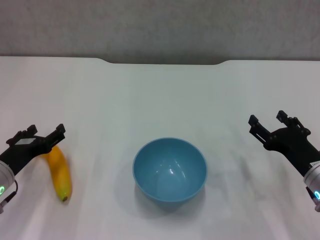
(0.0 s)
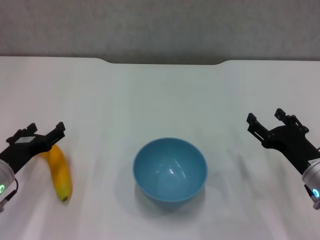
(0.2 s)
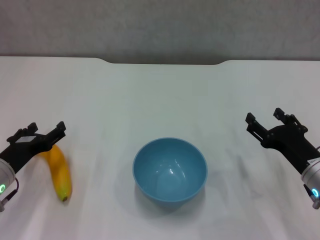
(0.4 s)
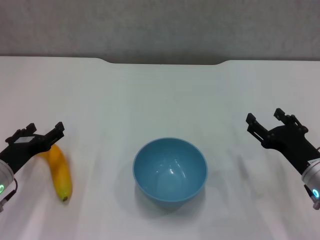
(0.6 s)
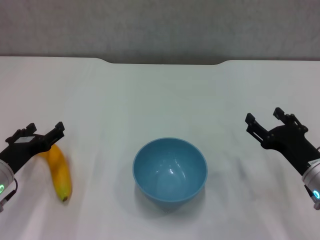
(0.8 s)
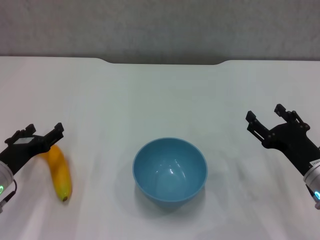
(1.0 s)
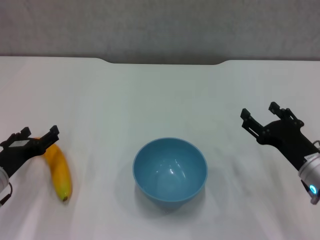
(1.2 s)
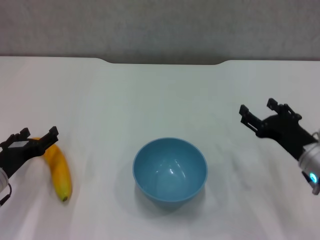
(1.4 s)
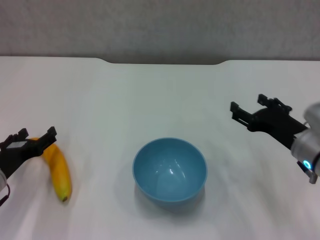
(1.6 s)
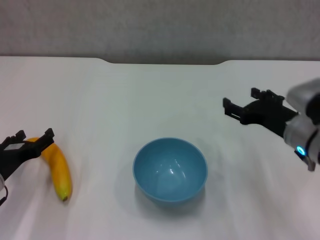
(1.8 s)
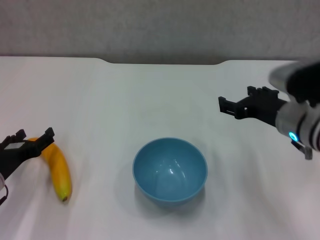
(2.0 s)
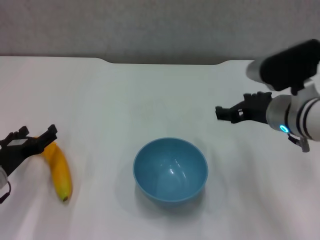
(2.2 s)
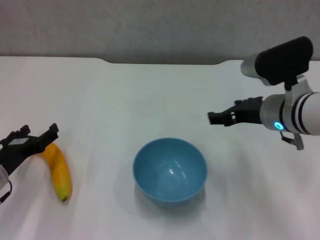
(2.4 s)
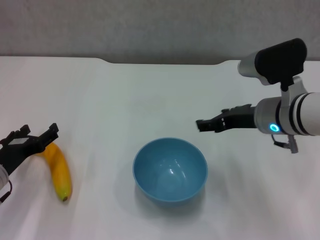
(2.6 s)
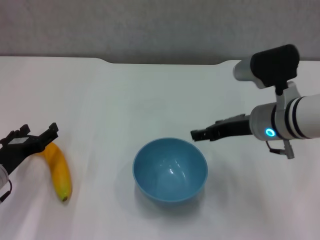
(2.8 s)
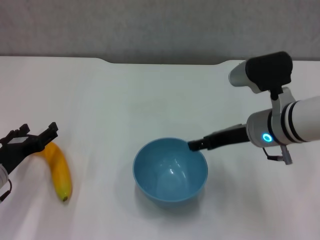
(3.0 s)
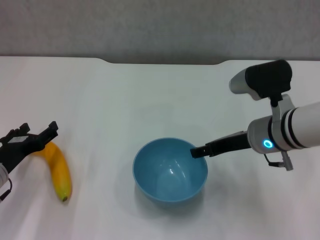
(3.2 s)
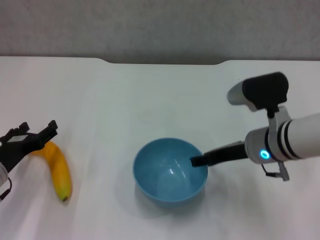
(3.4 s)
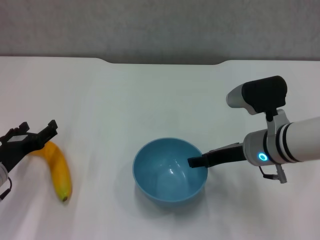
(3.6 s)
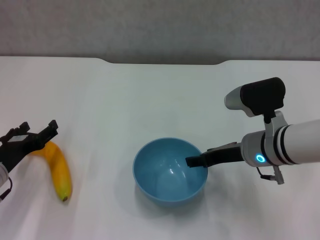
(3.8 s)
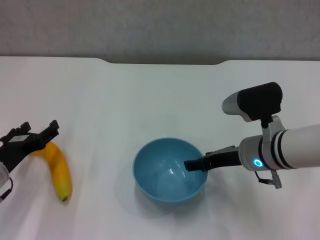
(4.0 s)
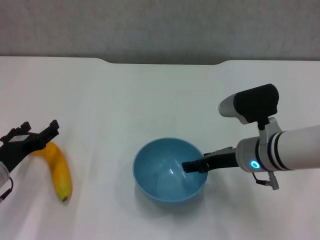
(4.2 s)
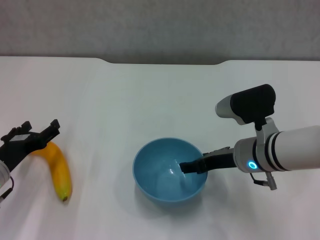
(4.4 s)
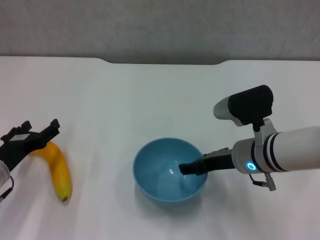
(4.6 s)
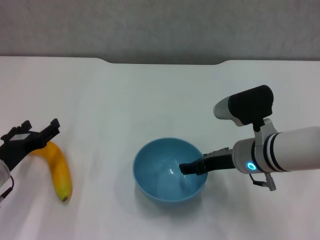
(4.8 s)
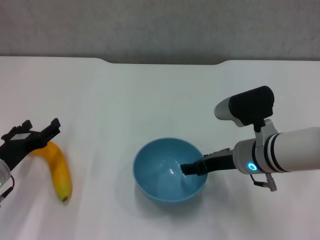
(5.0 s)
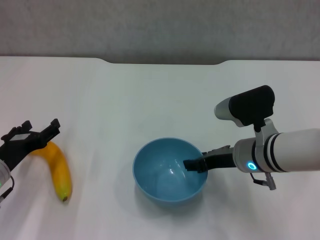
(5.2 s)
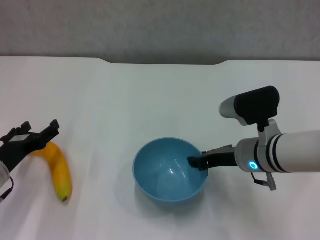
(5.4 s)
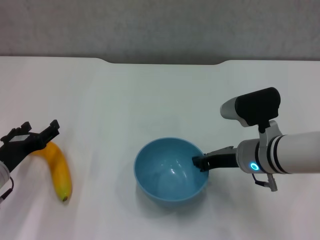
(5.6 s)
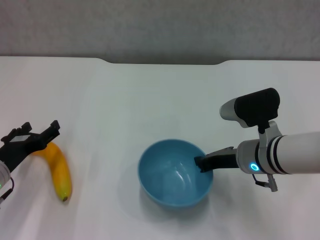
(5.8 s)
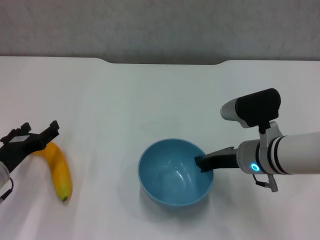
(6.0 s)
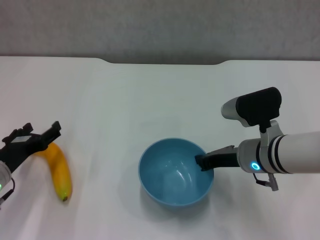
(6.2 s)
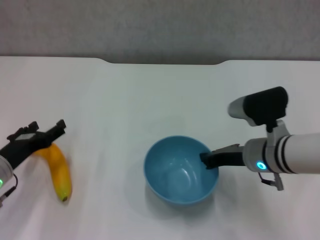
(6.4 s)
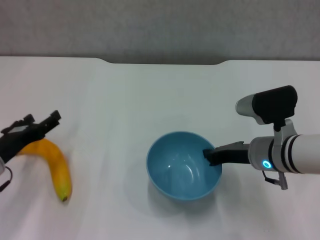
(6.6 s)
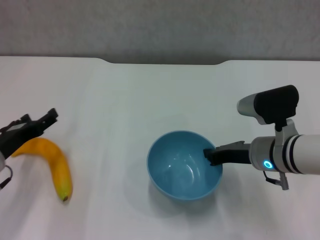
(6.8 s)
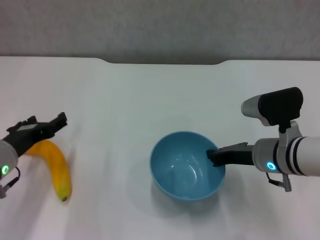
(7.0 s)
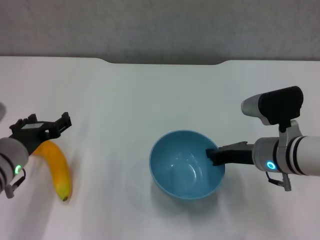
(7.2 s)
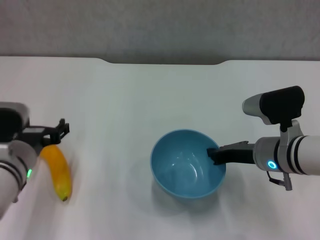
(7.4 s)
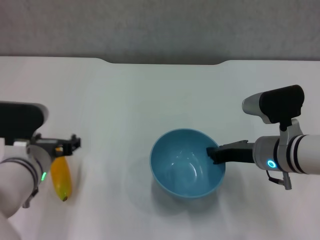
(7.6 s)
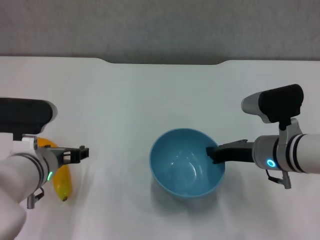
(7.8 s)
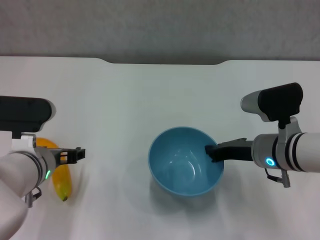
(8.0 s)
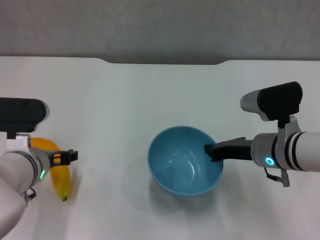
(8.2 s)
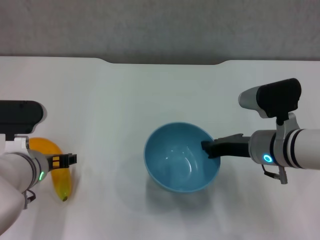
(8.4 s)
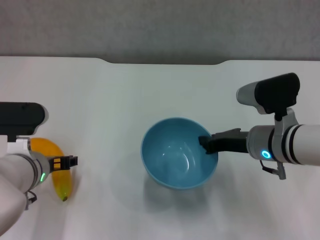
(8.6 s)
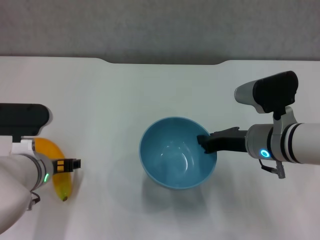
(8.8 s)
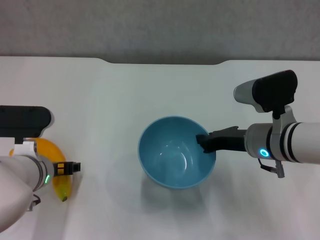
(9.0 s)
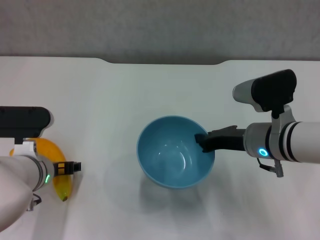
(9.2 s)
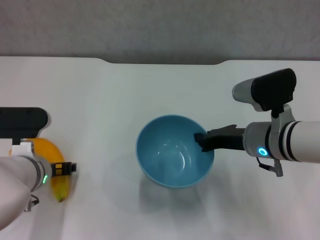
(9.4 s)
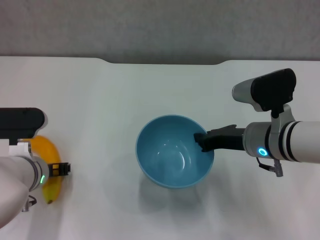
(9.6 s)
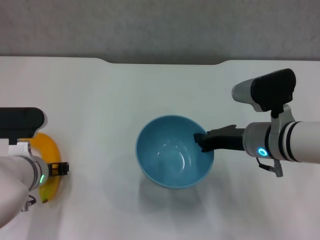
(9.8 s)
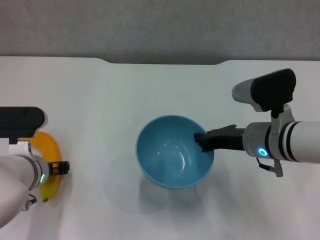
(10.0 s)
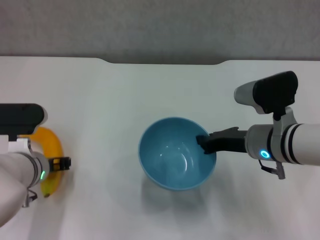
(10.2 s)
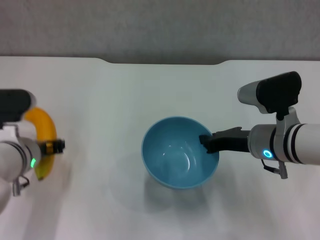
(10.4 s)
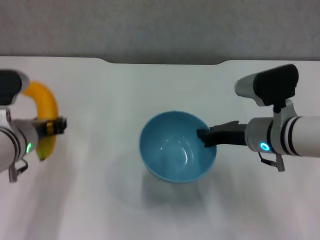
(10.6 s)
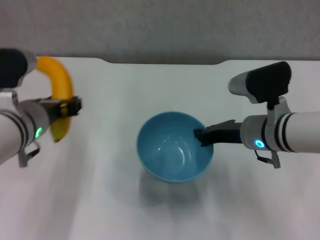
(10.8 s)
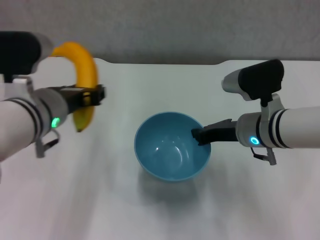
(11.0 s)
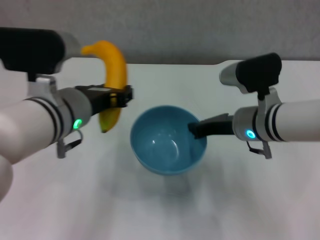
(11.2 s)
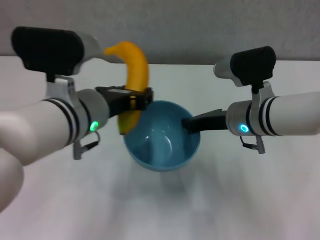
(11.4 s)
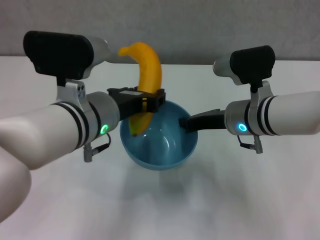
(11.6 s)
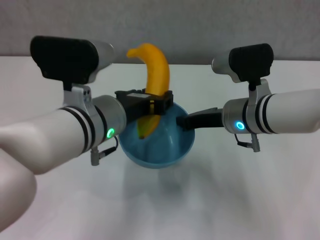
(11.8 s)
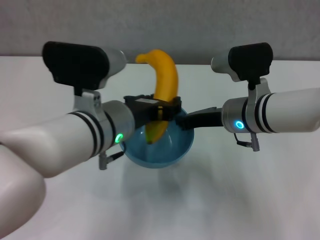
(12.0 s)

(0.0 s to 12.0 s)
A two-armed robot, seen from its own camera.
Step, 0.0 s - 5.8 s: Grasp the blue bowl with right gripper.
Step, 6.0 s - 8.6 s: Lift the blue bowl with right gripper.
Step, 8.8 s - 9.6 s: Grasp the banana with left gripper.
0.0 s - 1.6 s: The right gripper ends up about 5 cm from where it was.
1.6 s - 3.0 s: The right gripper shifts some 10 cm to the left and upward.
3.0 s - 4.4 s: The right gripper changes place by about 5 cm.
4.4 s - 6.0 s: The right gripper closes its fingers.
6.0 s - 7.6 s: The left gripper shifts approximately 10 cm to the right and upward.
7.6 s - 9.0 s: The grippers stay close to where they were, moving slightly.
9.0 s - 10.4 s: The left gripper closes.
10.4 s - 12.0 s: The left gripper goes some 15 cm to the right and upward. Meanwhile the right gripper moves some 5 cm.

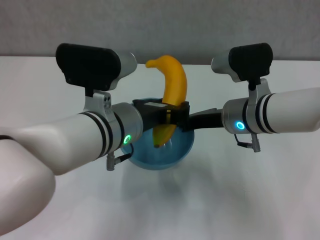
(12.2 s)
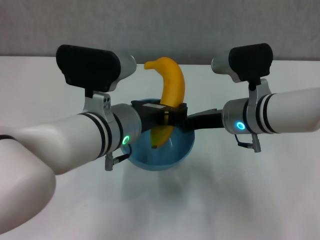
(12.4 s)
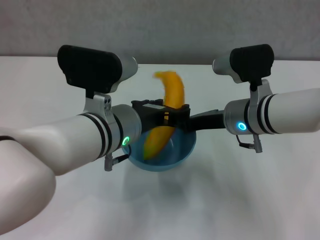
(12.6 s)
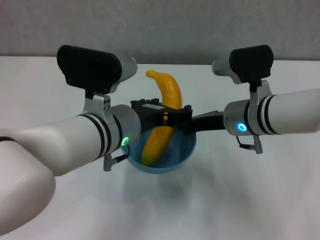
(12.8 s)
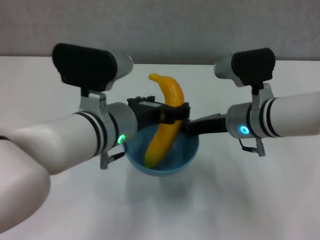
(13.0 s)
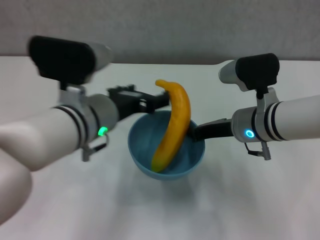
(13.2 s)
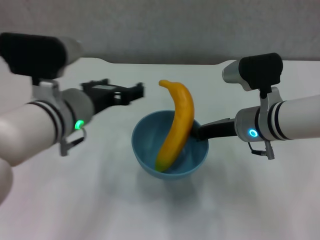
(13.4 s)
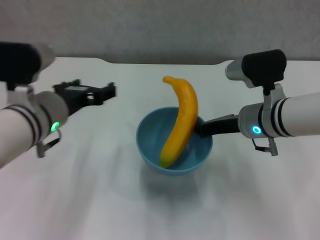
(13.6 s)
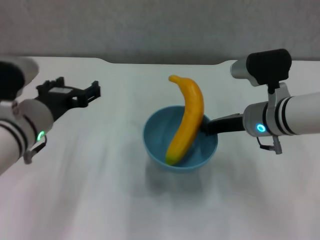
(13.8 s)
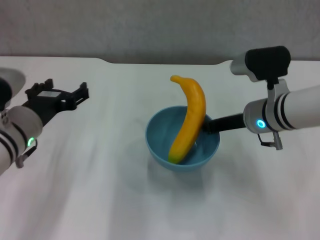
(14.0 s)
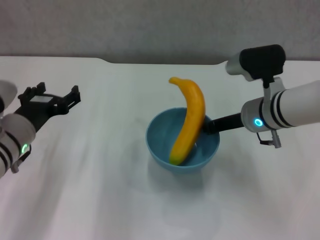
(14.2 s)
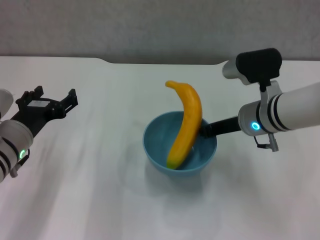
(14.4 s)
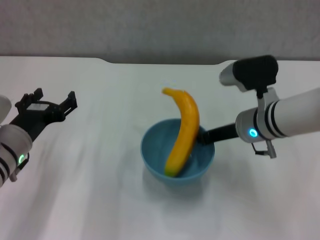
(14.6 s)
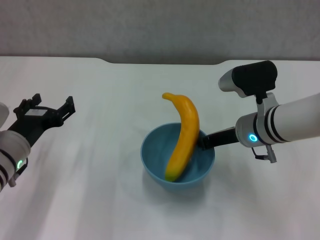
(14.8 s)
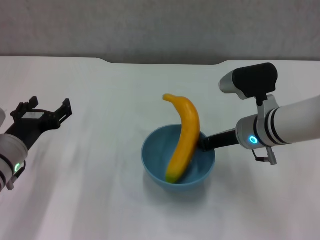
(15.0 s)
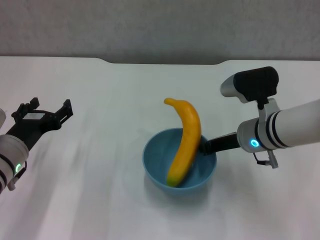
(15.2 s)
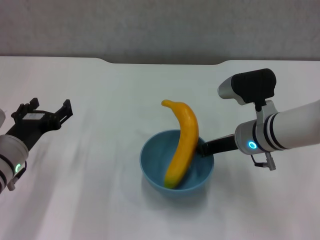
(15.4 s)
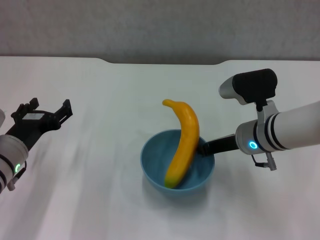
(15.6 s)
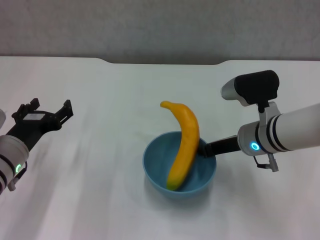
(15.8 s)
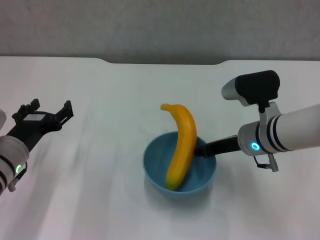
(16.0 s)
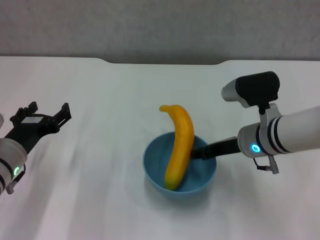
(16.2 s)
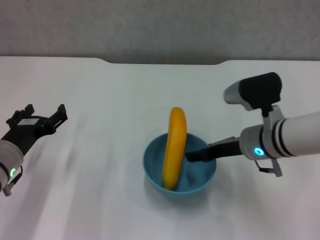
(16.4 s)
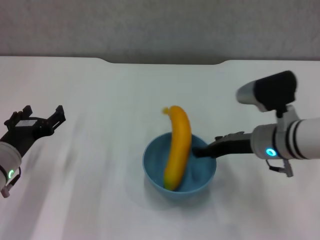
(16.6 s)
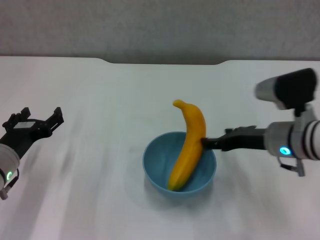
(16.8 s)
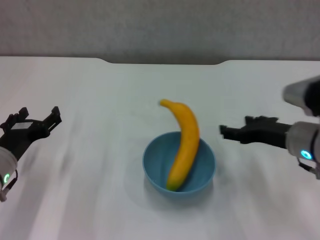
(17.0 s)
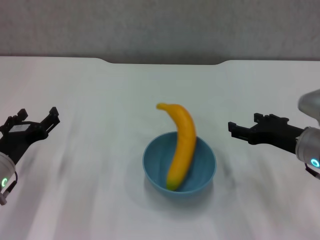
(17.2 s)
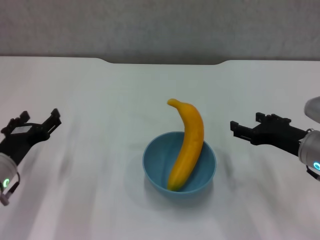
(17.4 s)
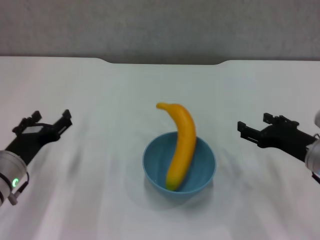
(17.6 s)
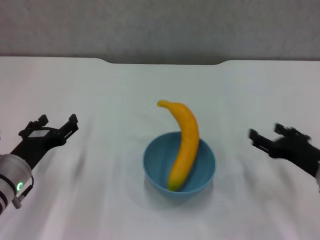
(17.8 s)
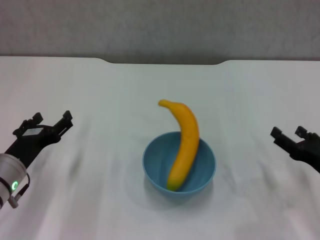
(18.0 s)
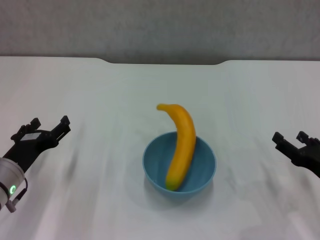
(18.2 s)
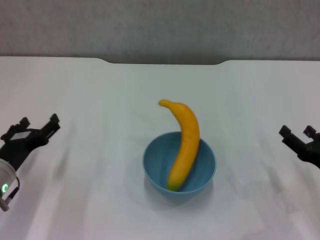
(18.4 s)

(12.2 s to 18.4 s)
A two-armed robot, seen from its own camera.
Step, 13.2 s - 16.4 s: Place the bowl on the table with right gripper.
12.2 s - 13.8 s: The left gripper is displaced to the left by roughly 10 cm, and opens up.
13.8 s - 15.4 s: The left gripper travels downward and to the left by about 10 cm.
15.4 s - 16.8 s: The right gripper ends up about 5 cm from where it was, and opens its fingers.
16.8 s - 18.4 s: The right gripper heads to the right, backward and downward, covering roughly 15 cm.
